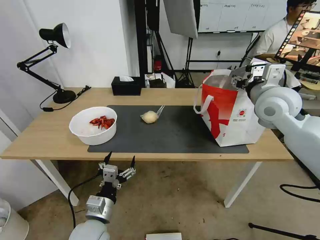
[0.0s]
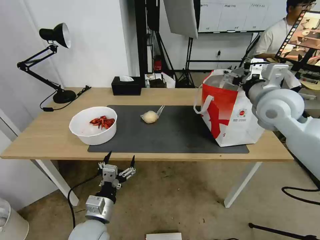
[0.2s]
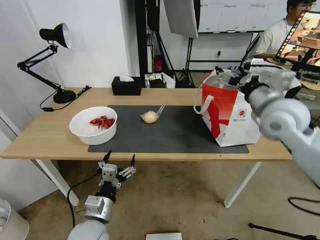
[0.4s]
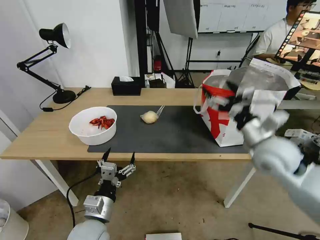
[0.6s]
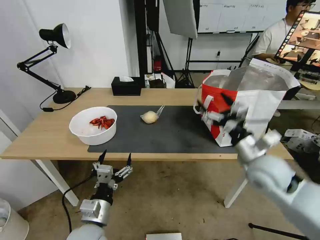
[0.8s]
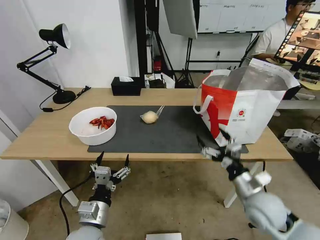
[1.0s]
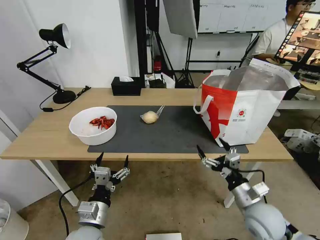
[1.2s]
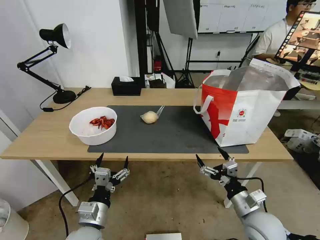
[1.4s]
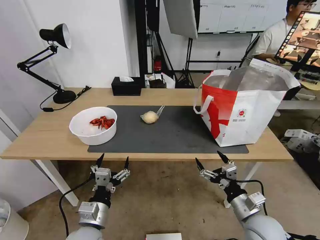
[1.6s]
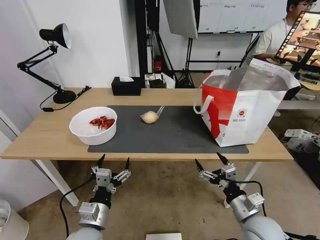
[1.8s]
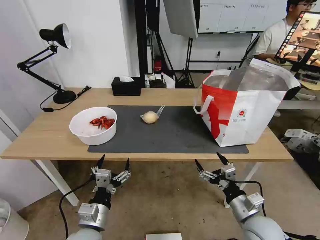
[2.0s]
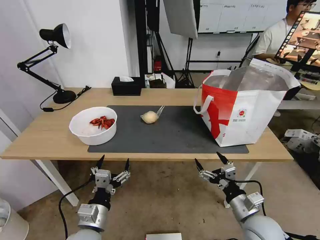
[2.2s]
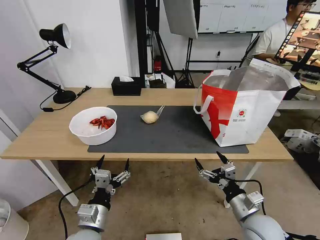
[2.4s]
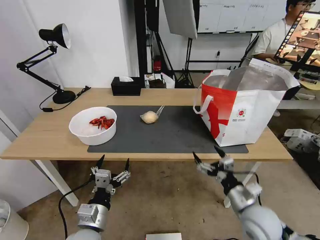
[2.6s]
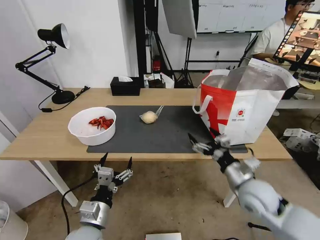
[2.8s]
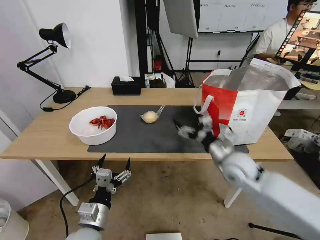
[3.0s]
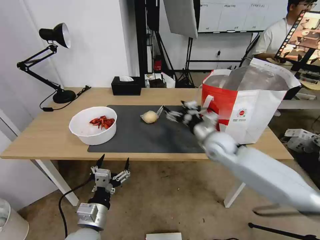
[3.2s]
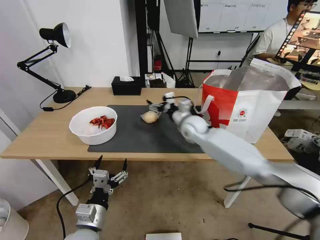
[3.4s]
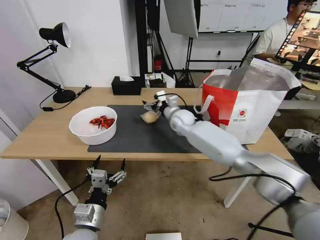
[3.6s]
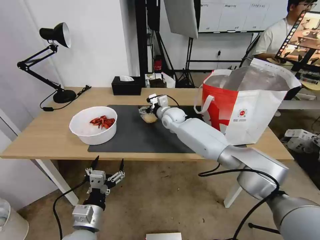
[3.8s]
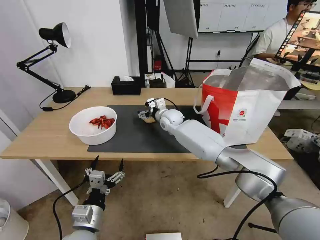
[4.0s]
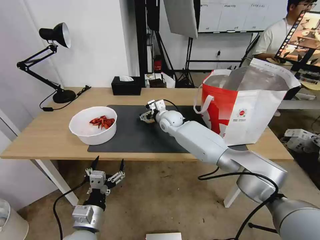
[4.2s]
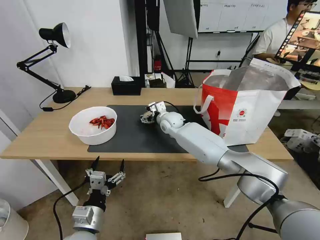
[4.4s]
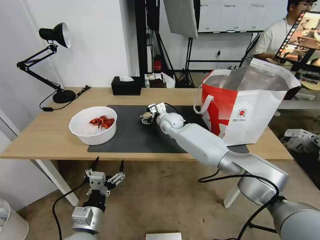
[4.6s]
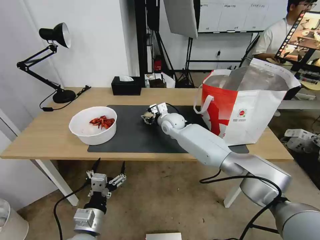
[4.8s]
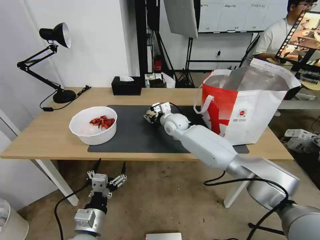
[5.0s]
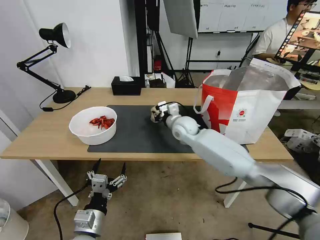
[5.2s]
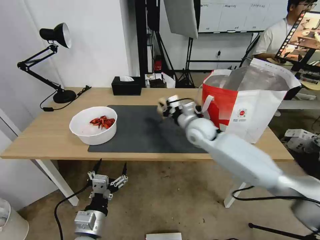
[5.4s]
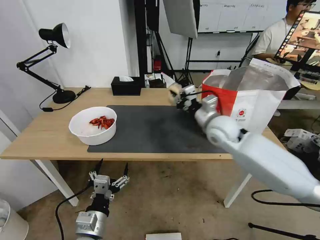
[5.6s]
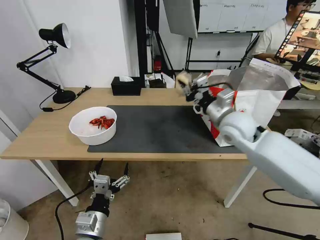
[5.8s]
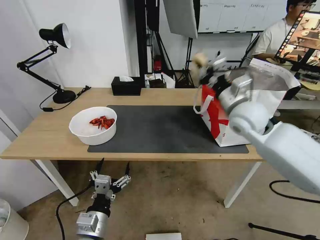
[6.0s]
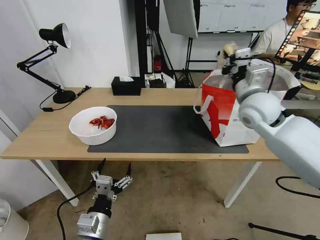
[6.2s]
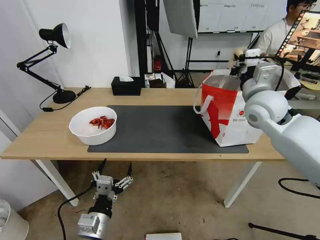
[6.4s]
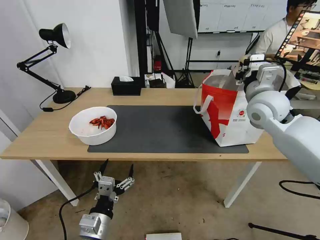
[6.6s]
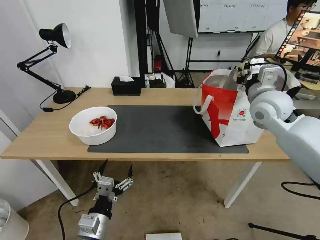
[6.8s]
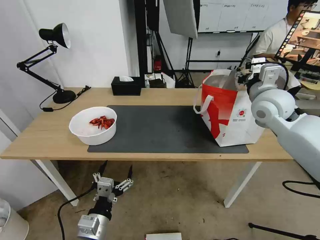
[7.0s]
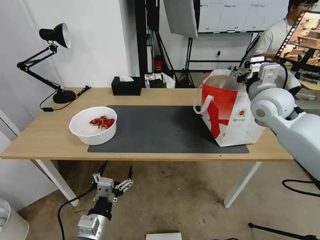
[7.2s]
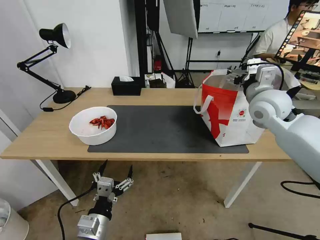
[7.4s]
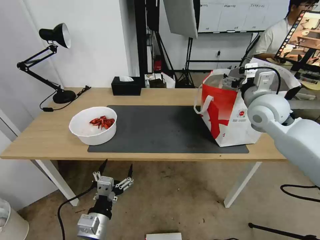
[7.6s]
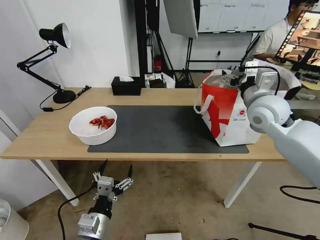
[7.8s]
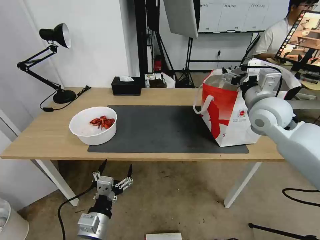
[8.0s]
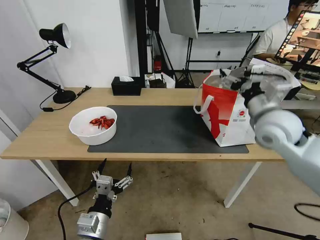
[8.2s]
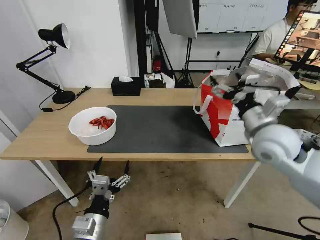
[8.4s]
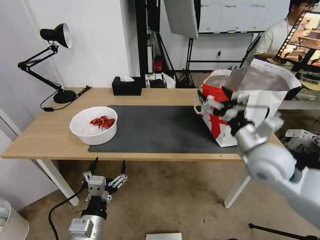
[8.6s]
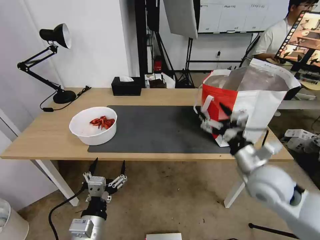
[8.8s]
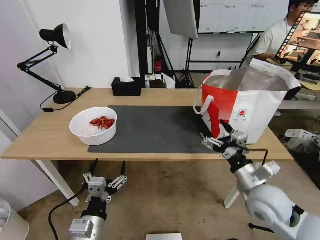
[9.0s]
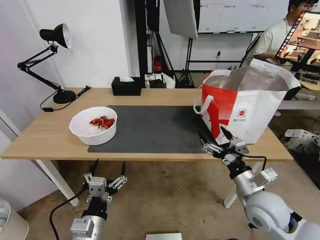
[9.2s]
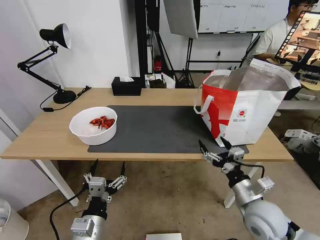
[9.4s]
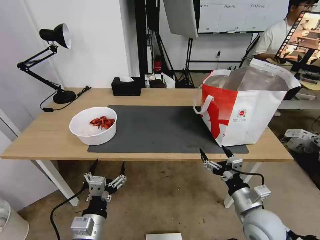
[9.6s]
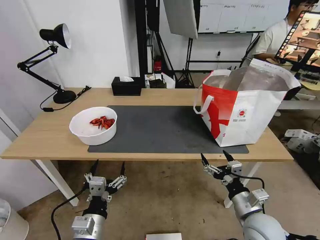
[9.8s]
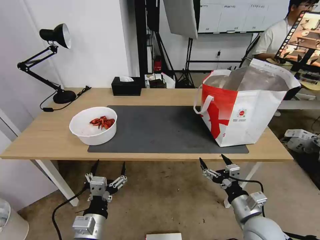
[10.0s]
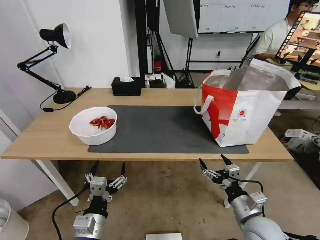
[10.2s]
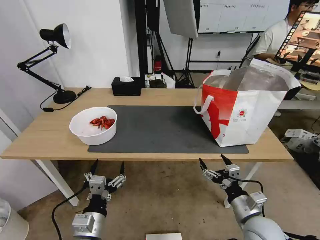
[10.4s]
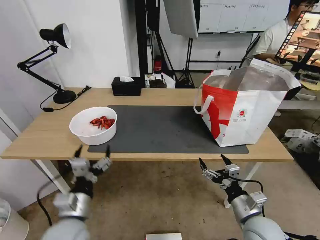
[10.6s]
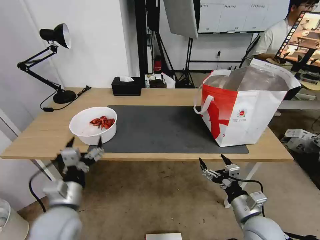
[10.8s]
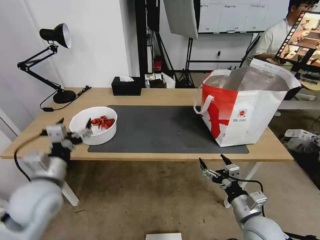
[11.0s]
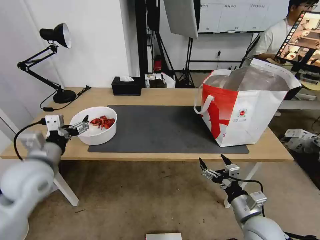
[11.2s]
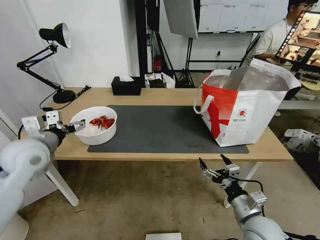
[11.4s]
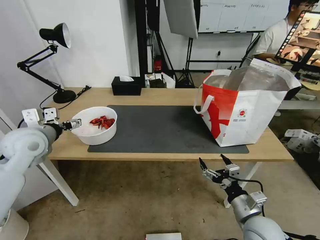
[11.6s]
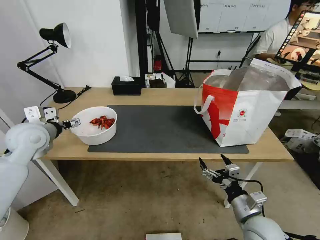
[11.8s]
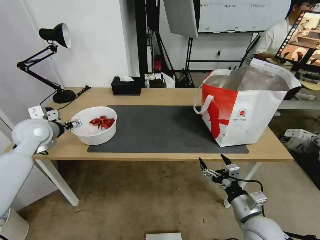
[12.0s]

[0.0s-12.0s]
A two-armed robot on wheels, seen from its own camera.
Task of the whole recording: Pick up the trash from the table and place it into the takeout bag.
0.0s to 1.6s: The right gripper heads downward and backward, covering some 35 cm, and opens.
1.6s to 3.0s: The right gripper moves forward and upward, roughly 15 cm.
3.0s to 4.4s: The right gripper goes roughly 30 cm forward and to the left.
4.4s to 6.0s: The right gripper is displaced to the right, upward and backward by roughly 30 cm, and closes up.
6.0s to 7.6s: The right gripper travels to the right by some 5 cm, and opens.
7.6s to 9.0s: The right gripper moves backward and downward, roughly 25 cm.
9.0s to 10.4s: The right gripper shifts some 10 cm downward and backward.
10.4s to 12.0s: The left gripper travels forward, to the left and upward by roughly 40 cm.

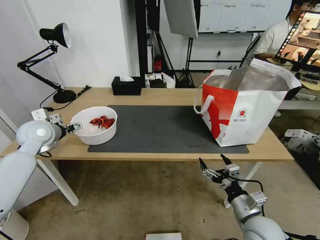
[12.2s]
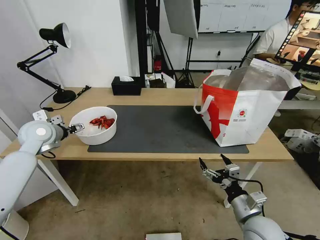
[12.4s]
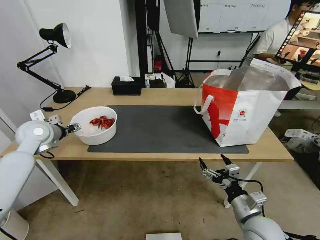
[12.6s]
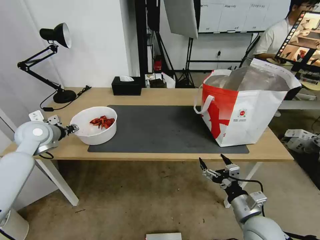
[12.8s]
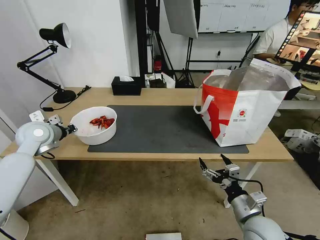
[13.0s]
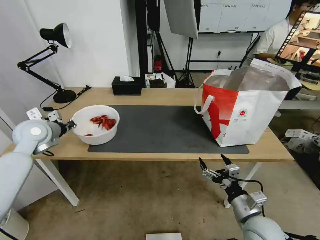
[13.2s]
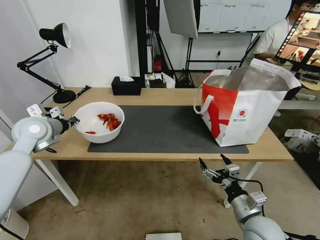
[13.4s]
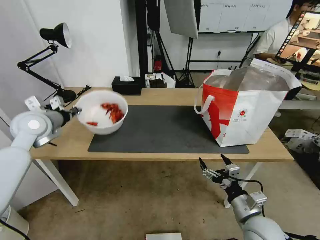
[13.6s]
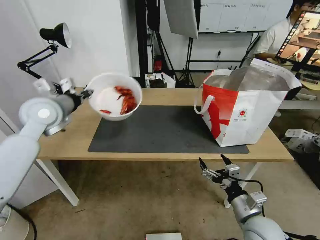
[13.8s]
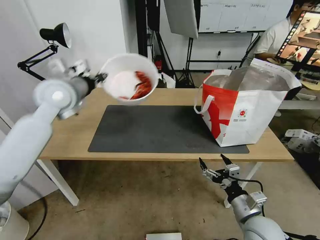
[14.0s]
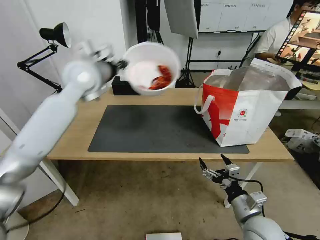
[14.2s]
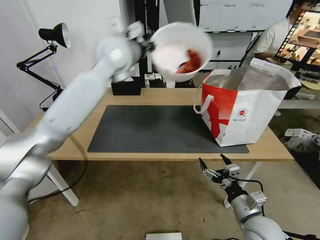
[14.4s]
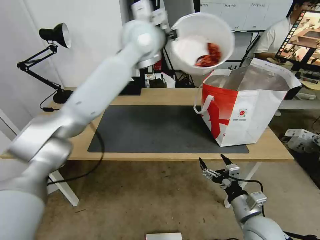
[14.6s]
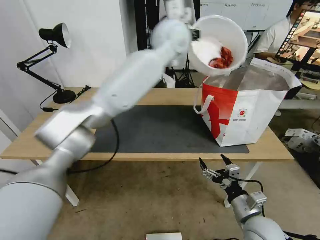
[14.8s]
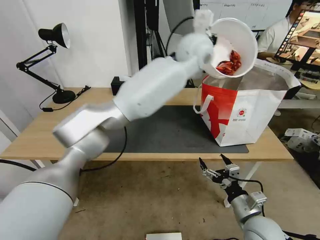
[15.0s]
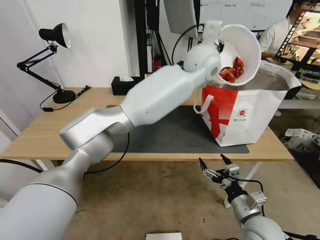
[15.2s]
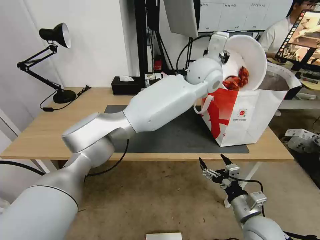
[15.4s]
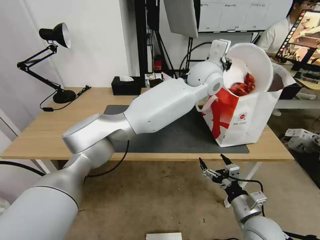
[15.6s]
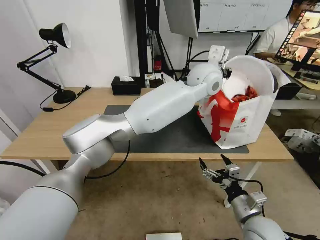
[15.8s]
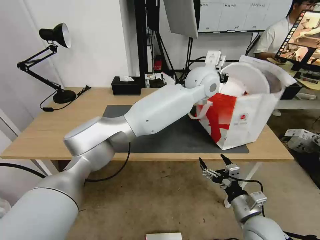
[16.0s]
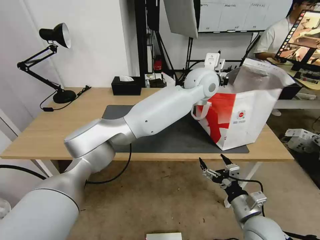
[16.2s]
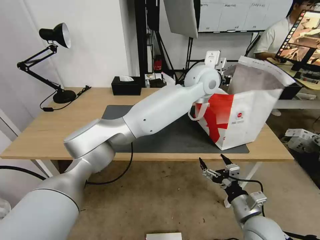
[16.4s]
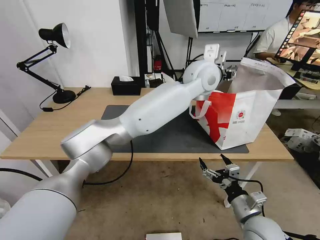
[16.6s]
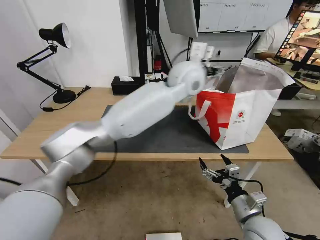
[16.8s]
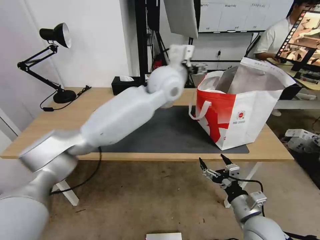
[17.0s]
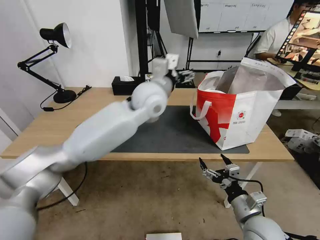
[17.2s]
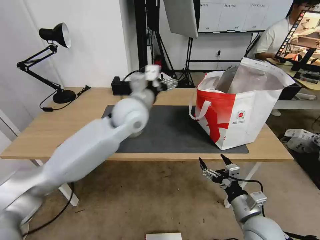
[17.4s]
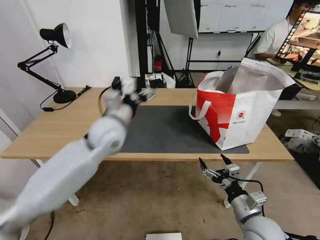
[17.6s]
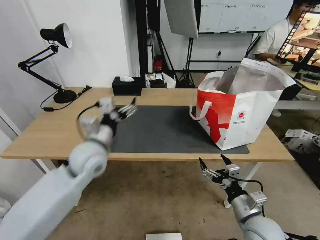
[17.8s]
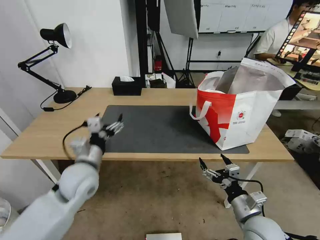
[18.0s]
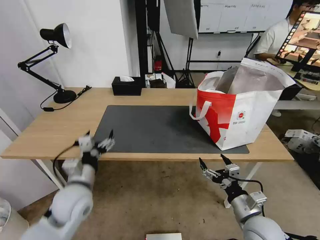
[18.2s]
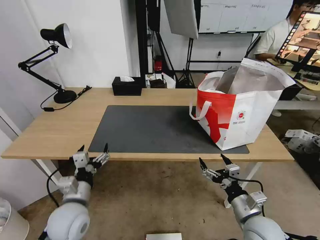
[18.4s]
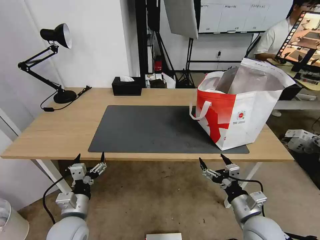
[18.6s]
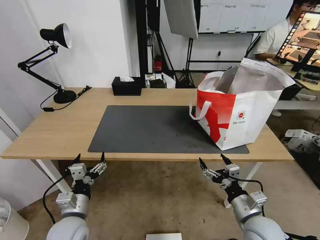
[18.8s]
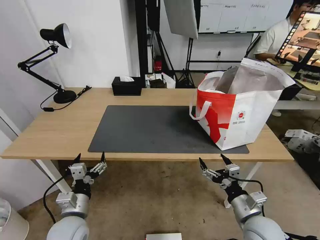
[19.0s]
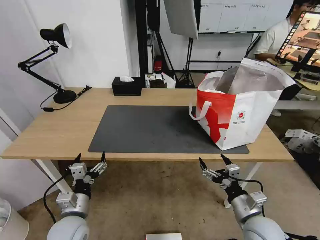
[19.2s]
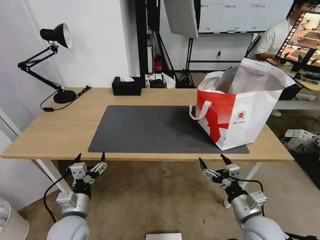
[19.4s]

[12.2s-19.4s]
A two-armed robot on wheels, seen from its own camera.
Task of the whole recording: Pick up the trash from the table and place it into the takeout bag.
12.2s to 13.6s: The left gripper is displaced upward by roughly 5 cm, and closes up.
13.6s to 15.0s: The left gripper is displaced to the right by about 50 cm.
15.0s to 16.6s: The left gripper ends up some 5 cm from where it was, and opens.
16.6s to 18.0s: The left gripper heads to the left, downward and backward, covering roughly 40 cm.
18.0s to 19.4s: The left gripper is displaced downward and backward by approximately 15 cm.

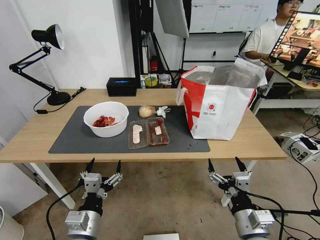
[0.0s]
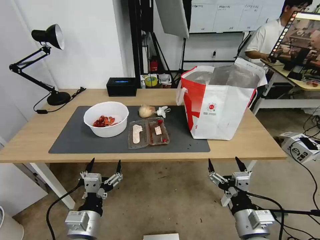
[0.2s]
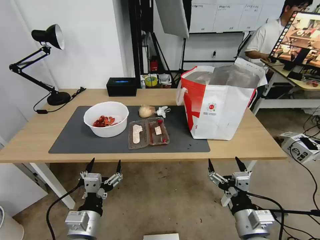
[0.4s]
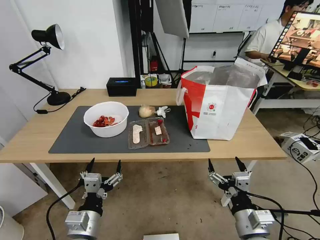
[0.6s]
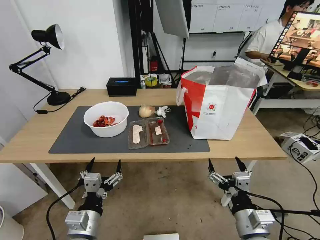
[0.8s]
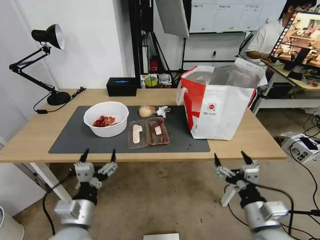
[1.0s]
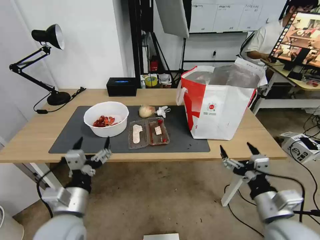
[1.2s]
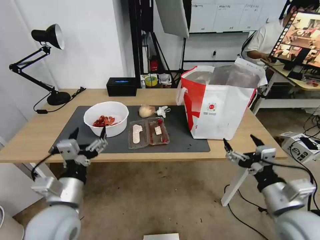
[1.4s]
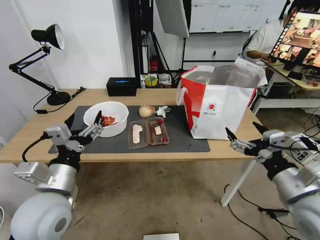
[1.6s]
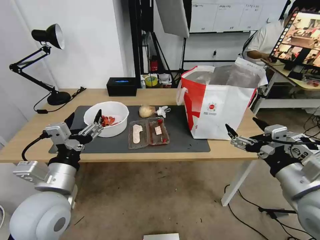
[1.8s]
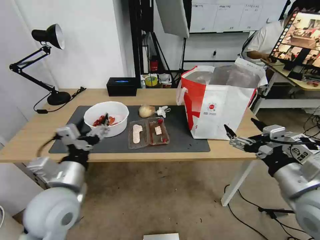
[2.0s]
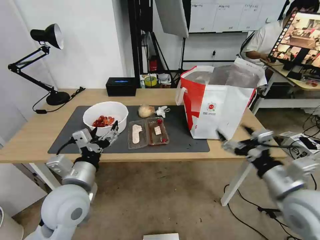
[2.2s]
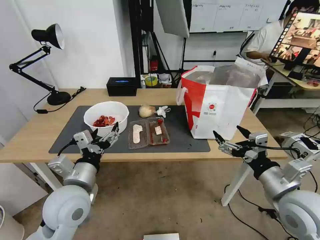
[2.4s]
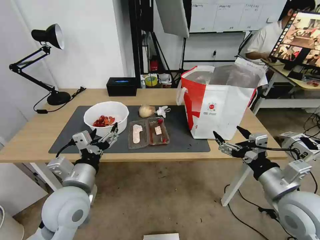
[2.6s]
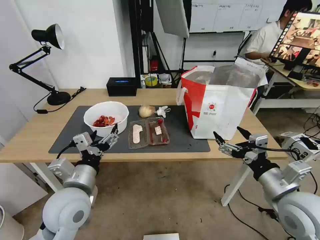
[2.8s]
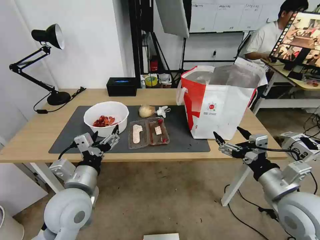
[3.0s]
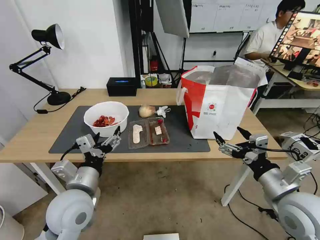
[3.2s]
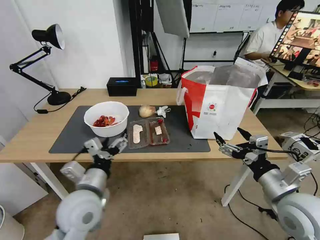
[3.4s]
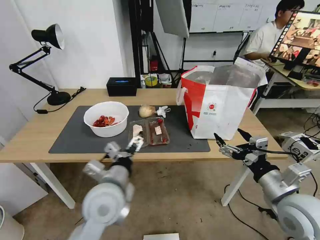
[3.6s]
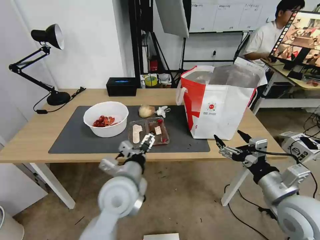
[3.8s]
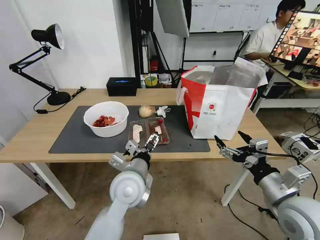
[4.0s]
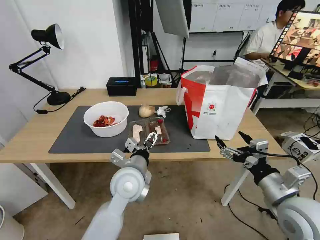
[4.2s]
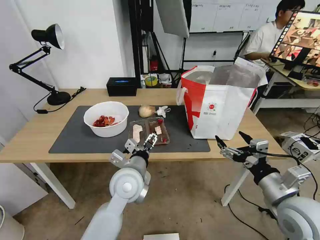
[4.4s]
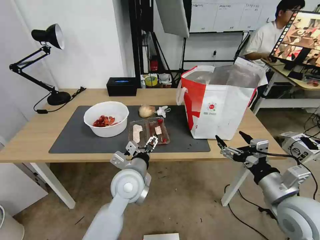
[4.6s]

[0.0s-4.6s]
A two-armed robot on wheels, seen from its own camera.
Task of the whole recording: Pick up the trash from the table and place it into the takeout bag.
1.6s to 3.0s: The left gripper changes place by some 5 cm.
3.0s to 4.6s: The left gripper travels to the right and forward by about 15 cm.
